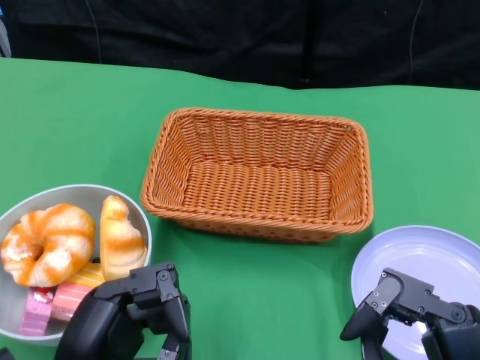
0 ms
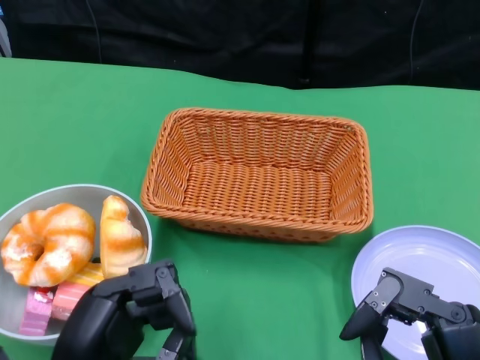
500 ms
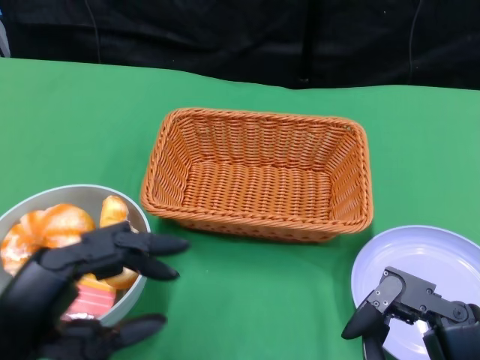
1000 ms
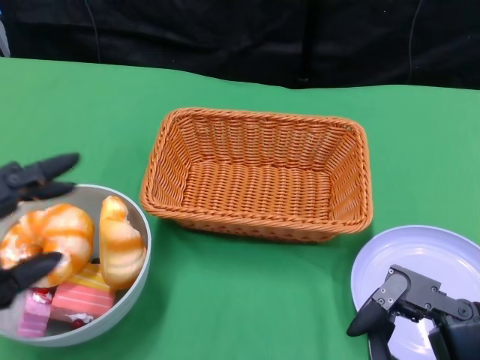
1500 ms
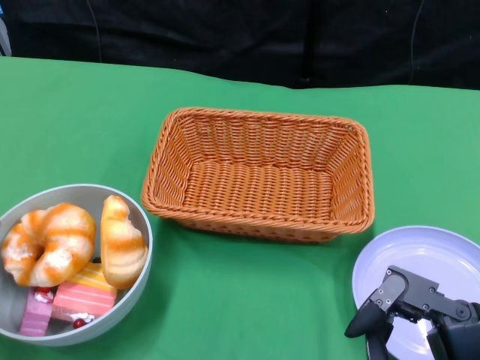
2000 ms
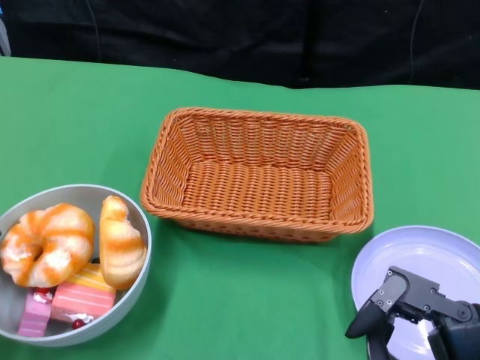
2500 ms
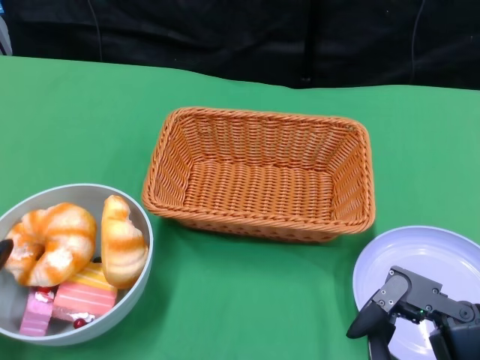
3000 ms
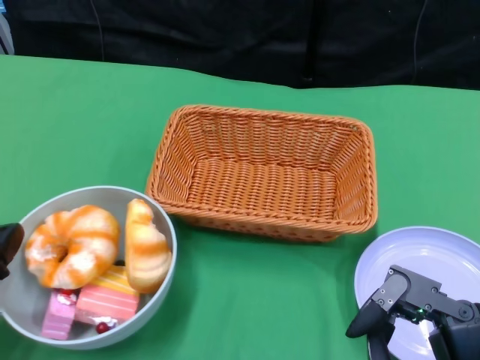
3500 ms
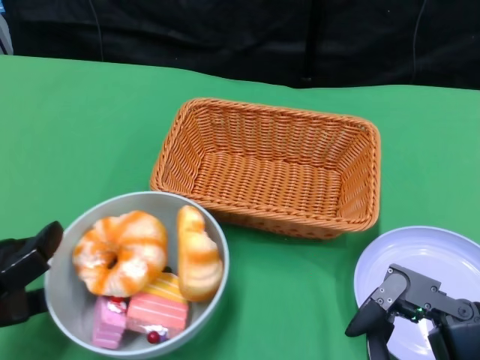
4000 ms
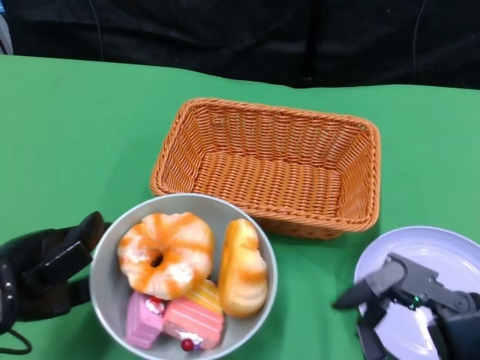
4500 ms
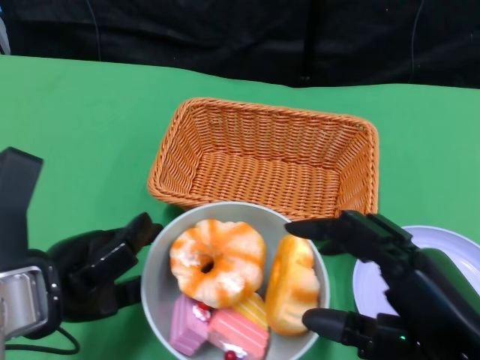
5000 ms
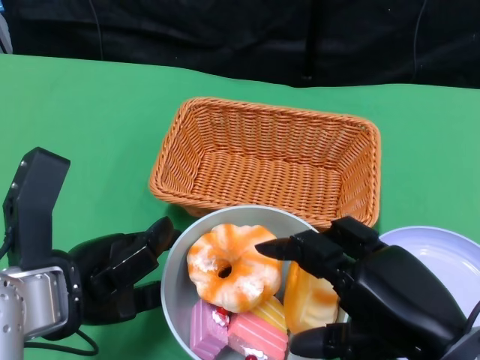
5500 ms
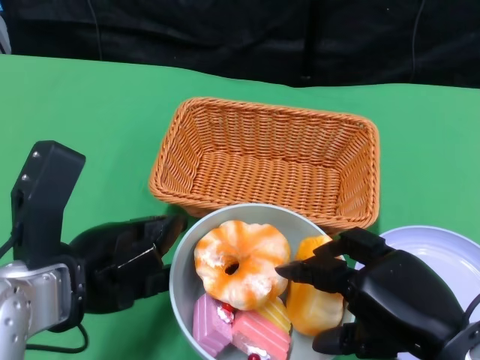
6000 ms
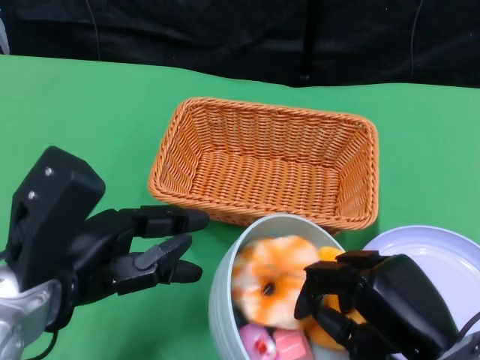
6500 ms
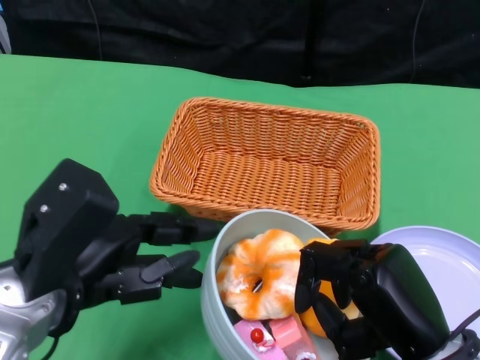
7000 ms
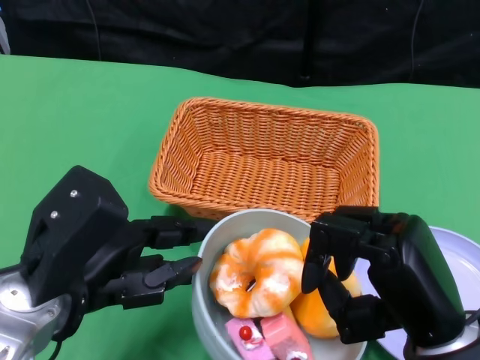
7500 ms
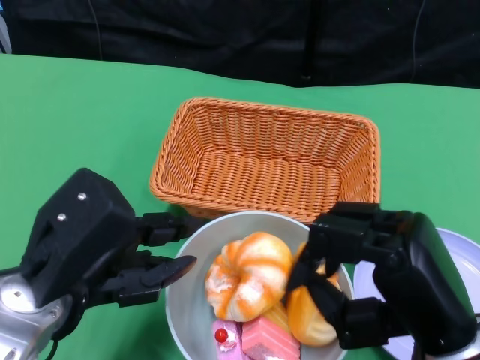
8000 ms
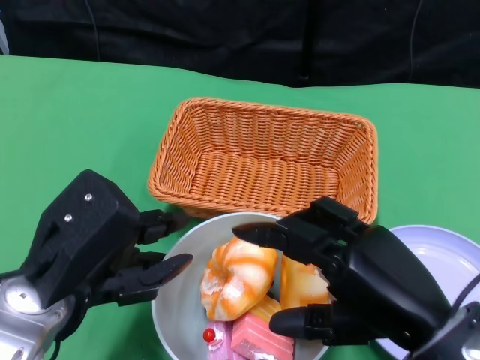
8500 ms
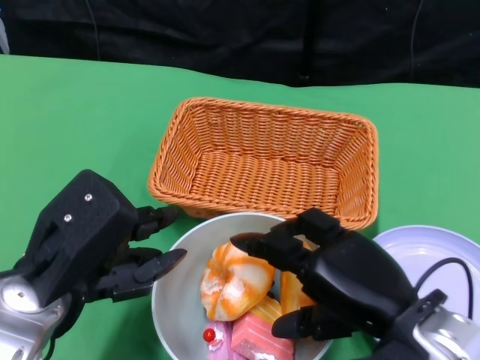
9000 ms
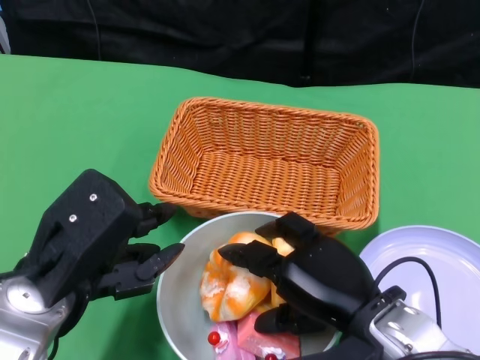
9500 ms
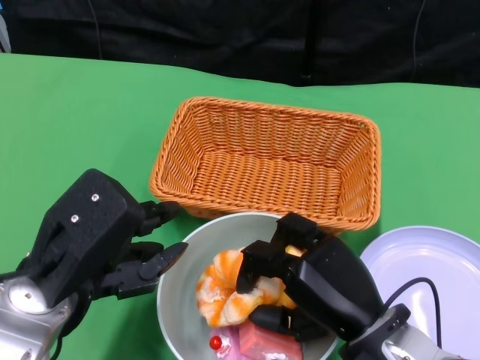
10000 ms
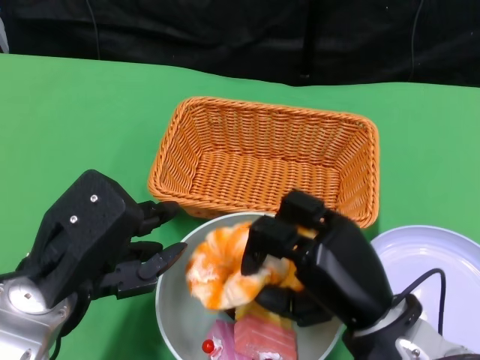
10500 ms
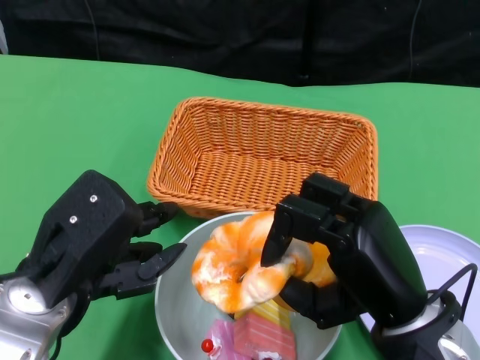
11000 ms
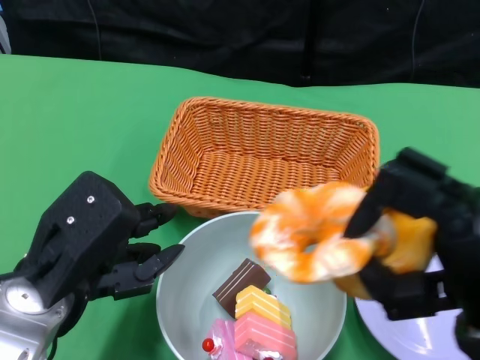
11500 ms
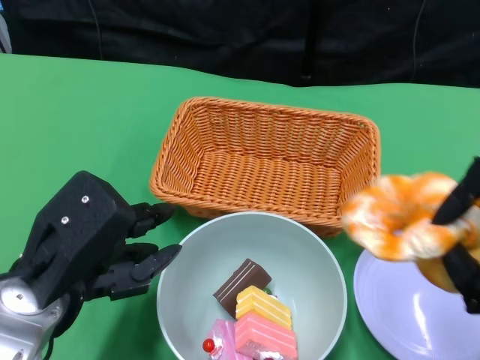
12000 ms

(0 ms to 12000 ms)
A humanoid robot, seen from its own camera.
Step, 0 ms - 5000 ms: Push the bowl to the center of the table using the left gripper.
2000 ms - 4000 ms: The left hand shifts roughly 5 cm forward.
4000 ms - 6000 ms: The right hand heads forward, covering roughly 5 cm, while the left hand moves to the right, roughly 10 cm.
8000 ms - 10000 ms: The right hand travels downward by some 10 cm.
10000 ms - 12000 ms: The right hand heads to the right and upward, covering roughly 15 cm.

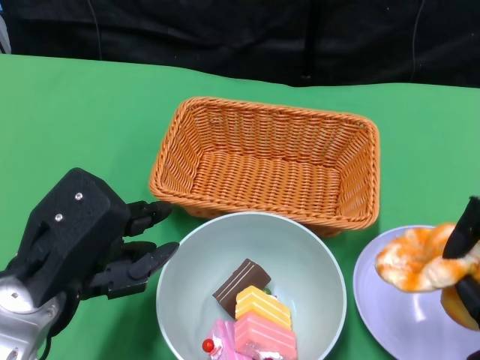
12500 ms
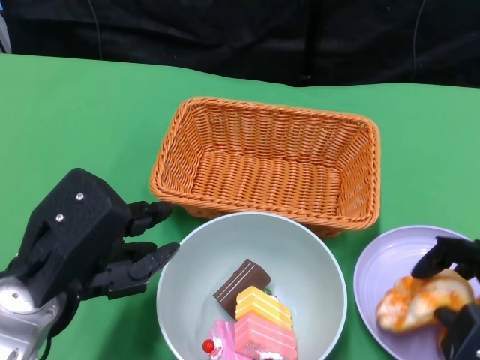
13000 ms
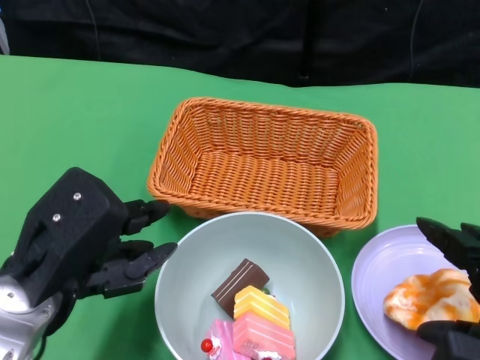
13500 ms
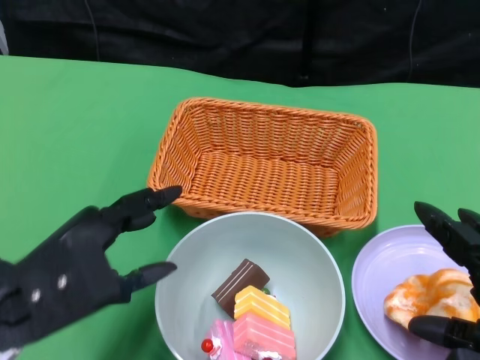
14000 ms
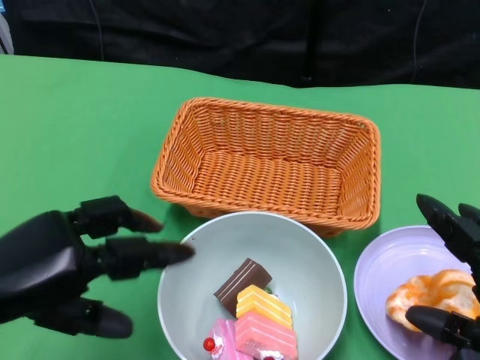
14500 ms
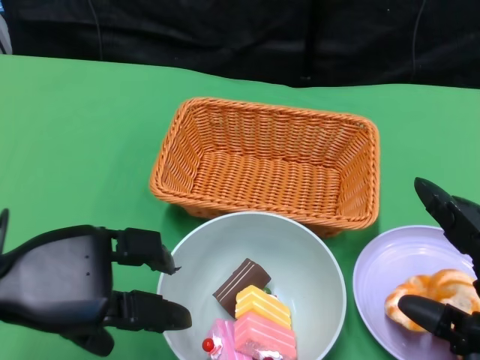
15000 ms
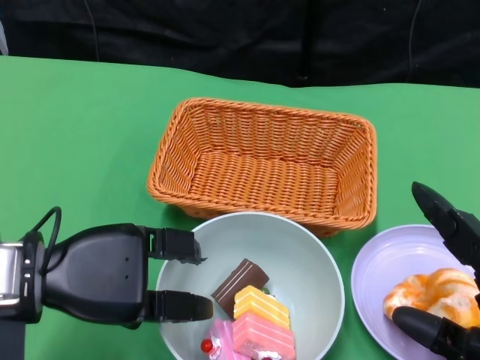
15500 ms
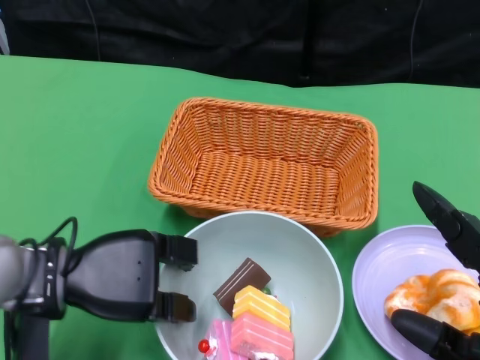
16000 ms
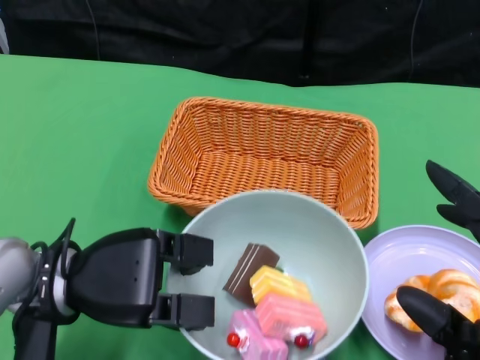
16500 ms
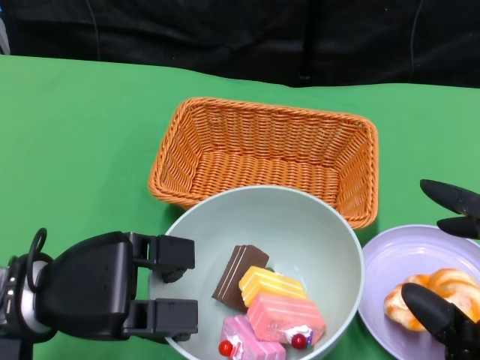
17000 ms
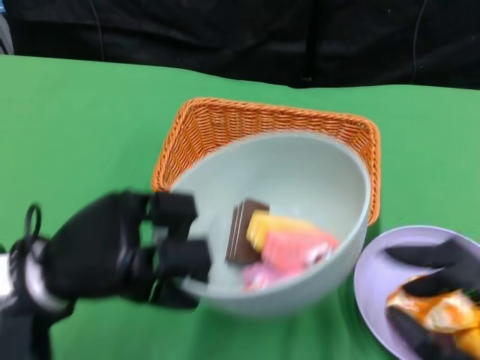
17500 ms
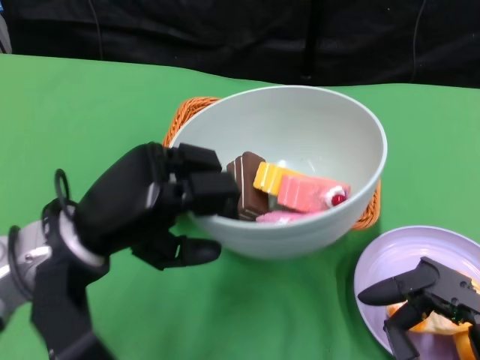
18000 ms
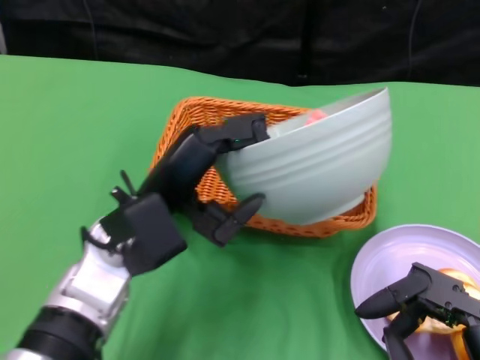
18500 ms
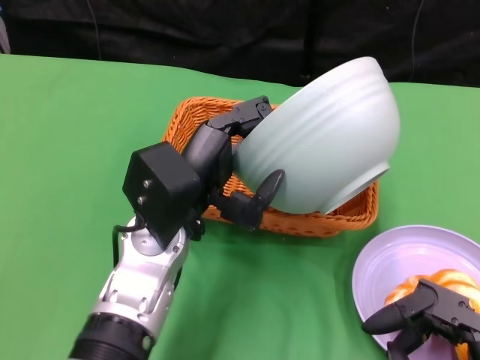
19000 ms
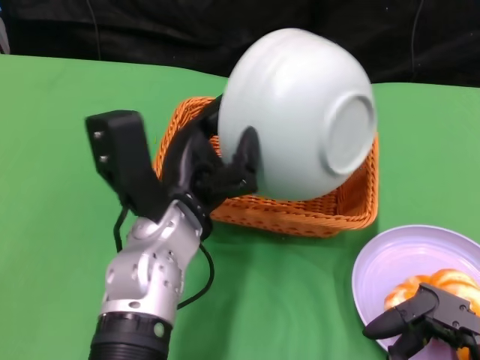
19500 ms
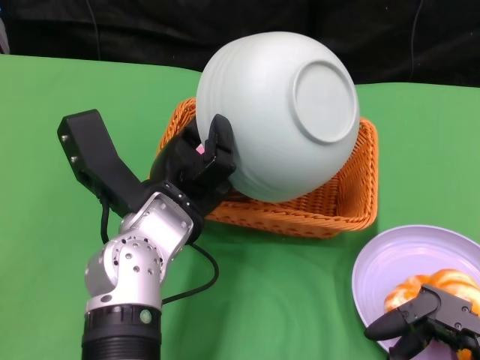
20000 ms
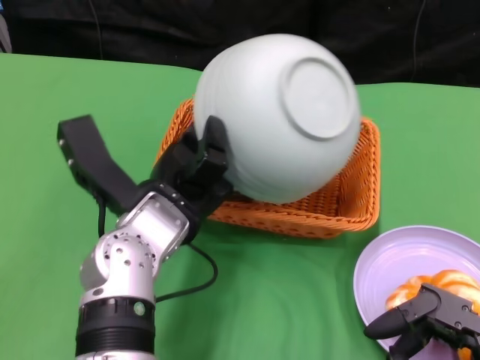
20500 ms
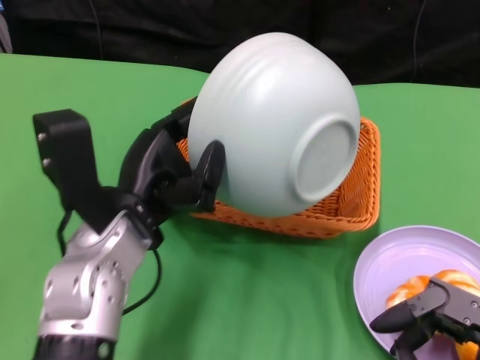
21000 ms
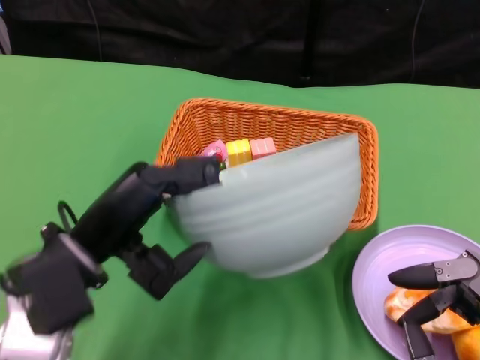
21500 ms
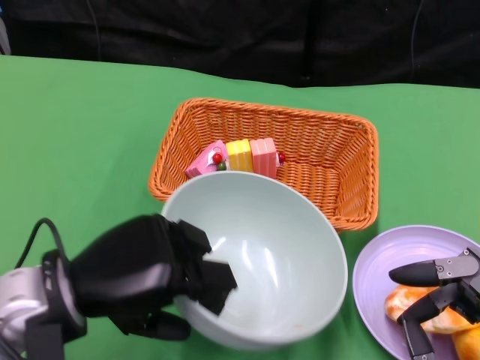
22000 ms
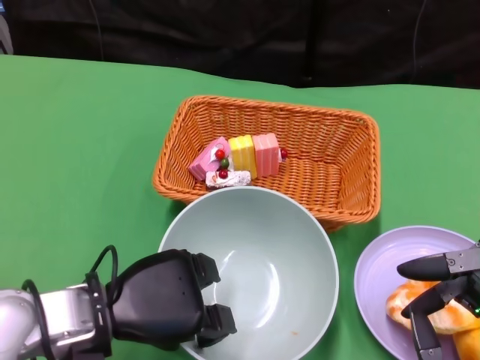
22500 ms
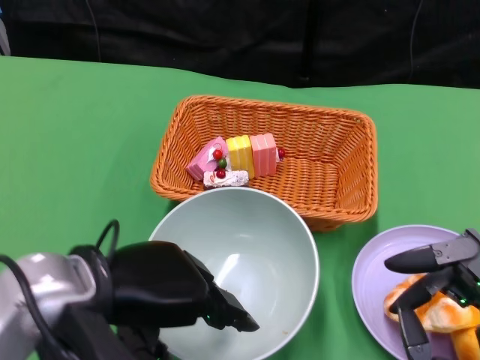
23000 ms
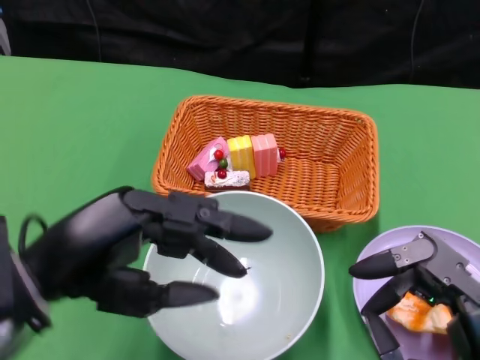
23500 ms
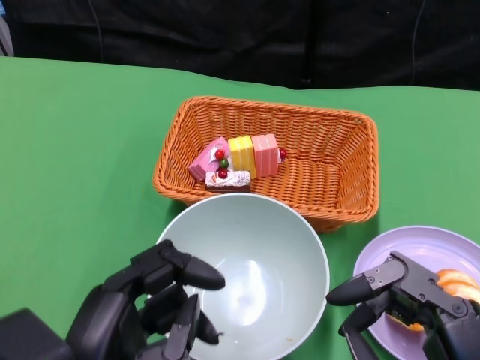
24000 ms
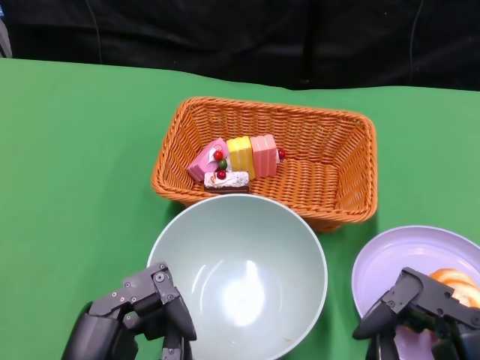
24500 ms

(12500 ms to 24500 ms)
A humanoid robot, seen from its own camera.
Step, 14000 ms - 16000 ms: Grasp the bowl with the left gripper.
Step, 16500 ms - 20500 ms: Pour the cake into the basket with the left gripper.
Step, 21000 ms - 23000 ms: Place the bowl on the table with the left gripper.
12500 ms - 14500 ms: The right hand shifts by some 5 cm. The left hand travels to the left by about 5 cm.
14500 ms - 16500 ms: The left hand is displaced forward, downward and to the right by about 10 cm, while the right hand ends up approximately 5 cm from where it was.
16500 ms - 18500 ms: The left hand moves to the right and upward, approximately 10 cm.
20500 ms - 22500 ms: The left hand travels to the left and backward by some 10 cm.
22500 ms - 24500 ms: The left hand travels backward by approximately 10 cm.

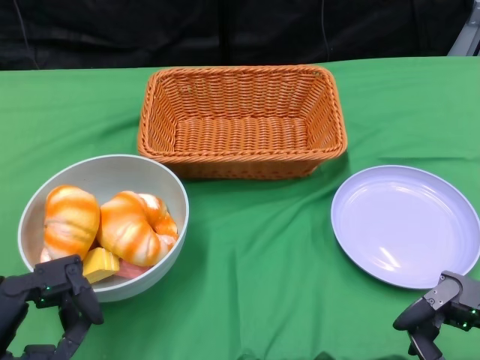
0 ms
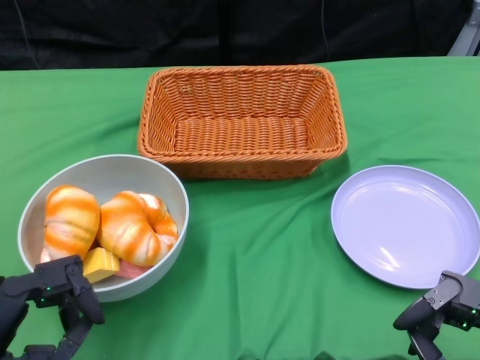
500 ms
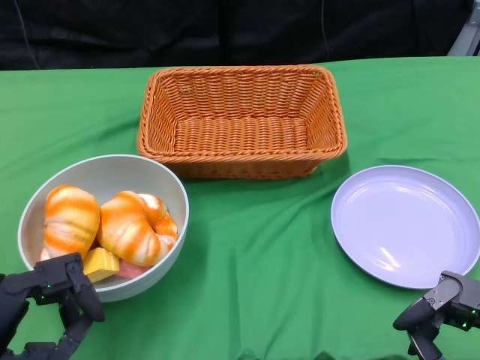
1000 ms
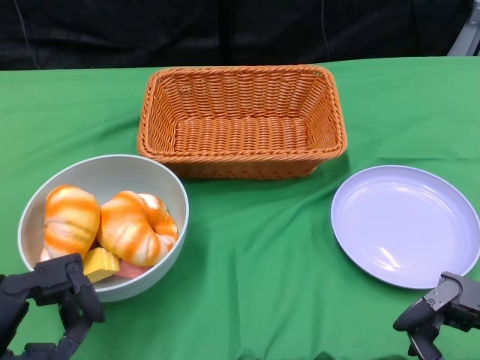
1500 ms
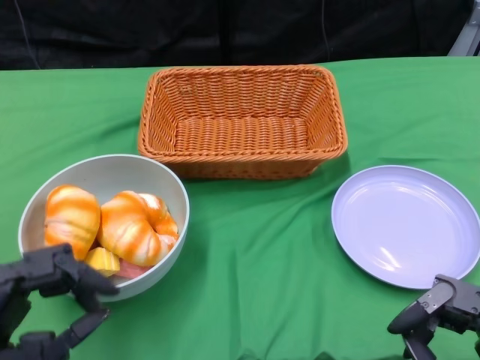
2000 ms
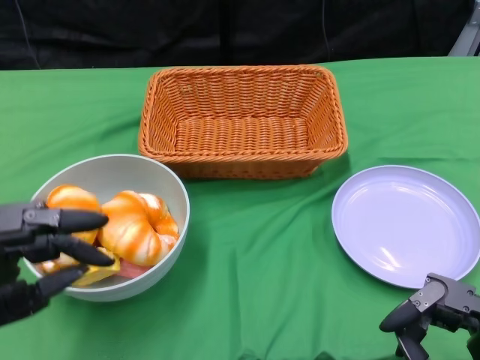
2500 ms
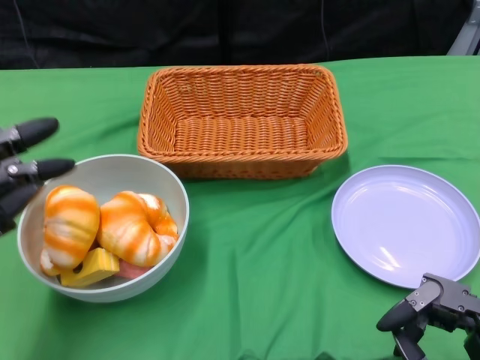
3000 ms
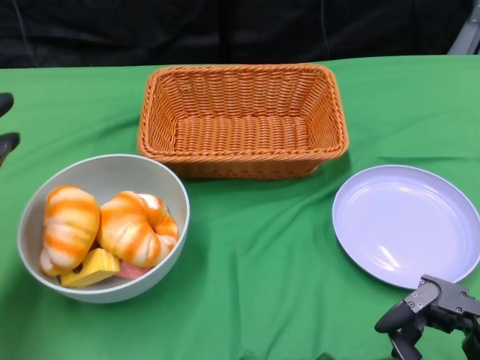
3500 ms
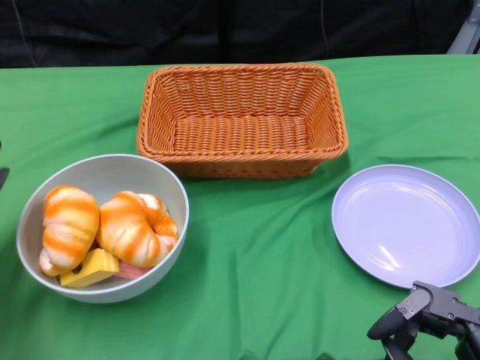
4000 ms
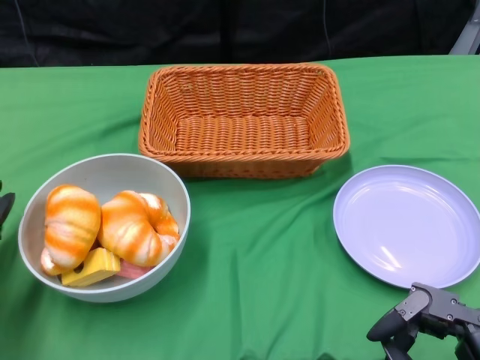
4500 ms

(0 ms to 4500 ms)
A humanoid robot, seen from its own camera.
2000 ms - 4500 ms: The left hand heads forward, covering approximately 15 cm.
